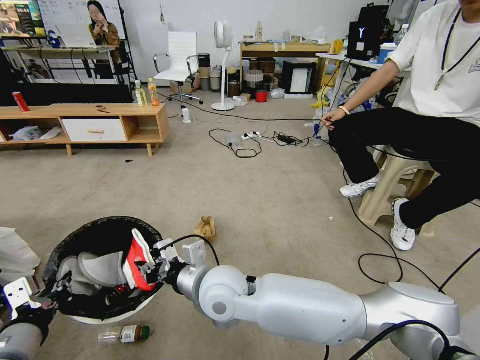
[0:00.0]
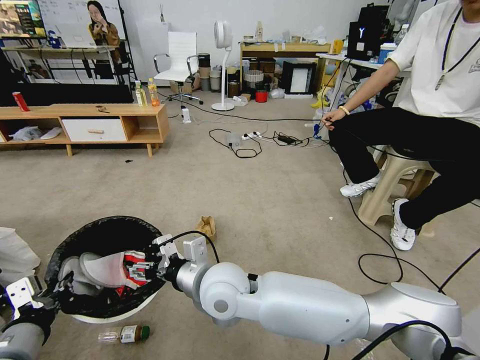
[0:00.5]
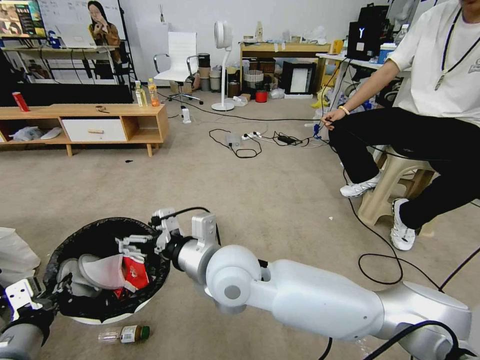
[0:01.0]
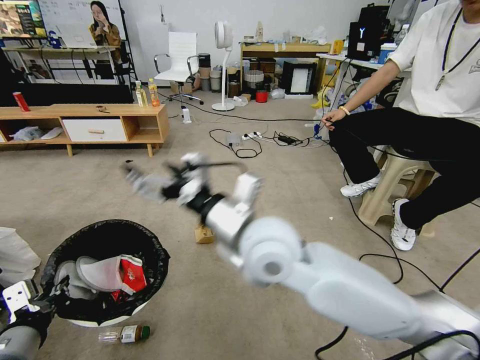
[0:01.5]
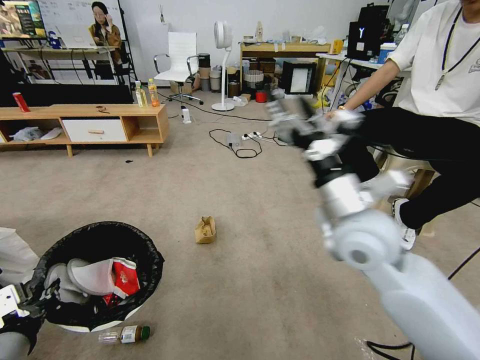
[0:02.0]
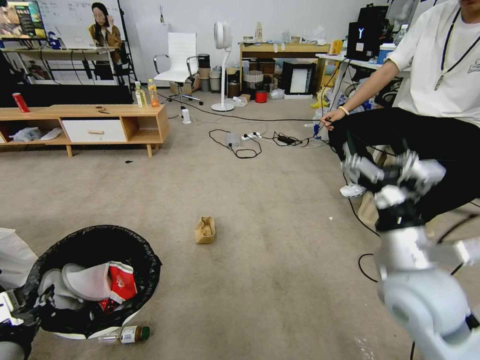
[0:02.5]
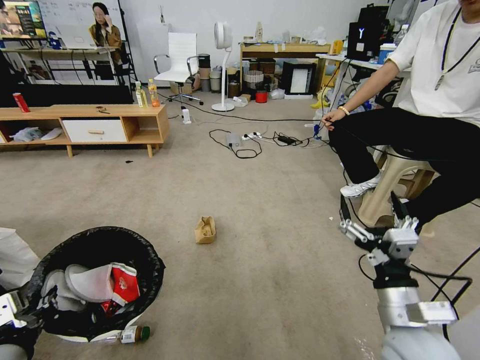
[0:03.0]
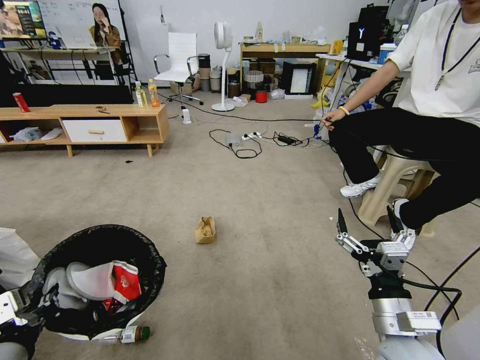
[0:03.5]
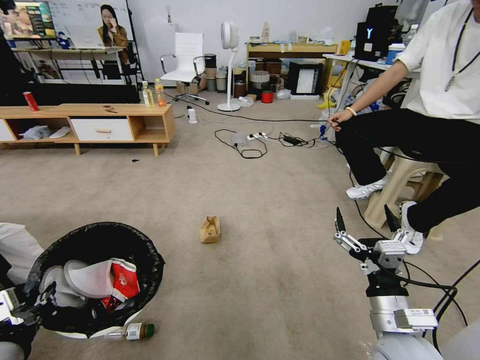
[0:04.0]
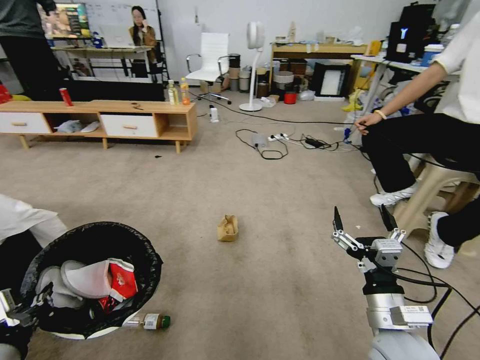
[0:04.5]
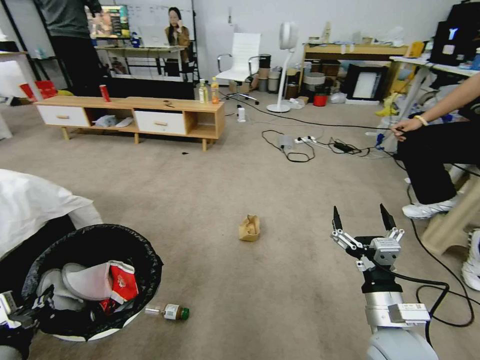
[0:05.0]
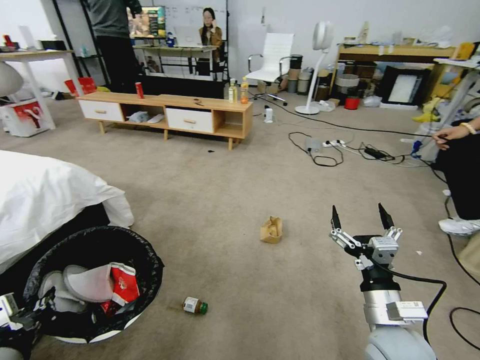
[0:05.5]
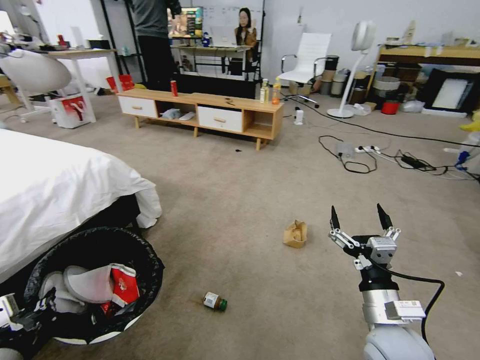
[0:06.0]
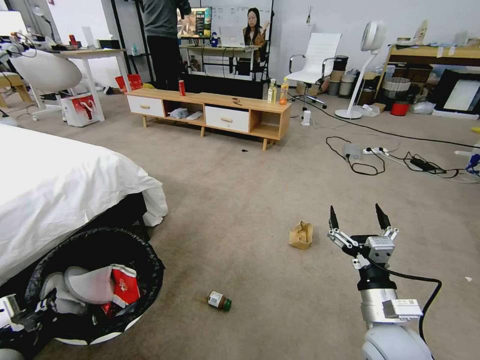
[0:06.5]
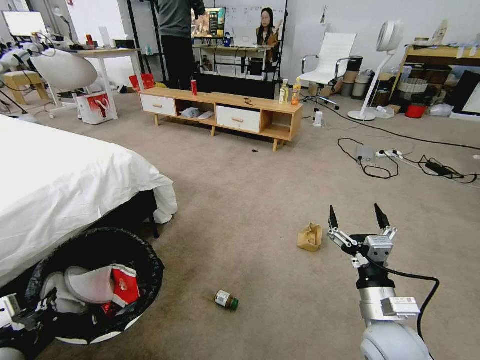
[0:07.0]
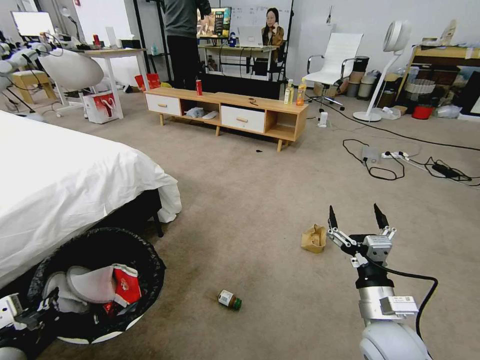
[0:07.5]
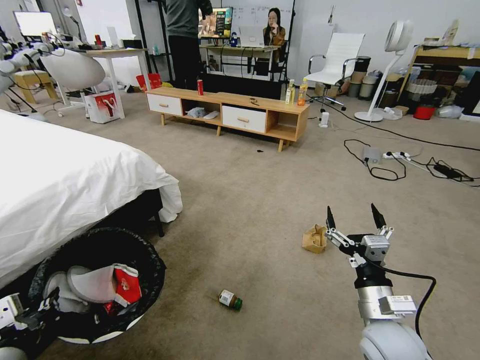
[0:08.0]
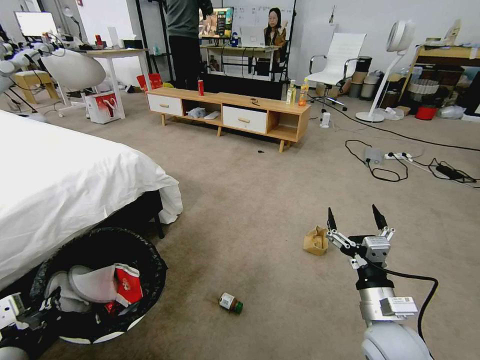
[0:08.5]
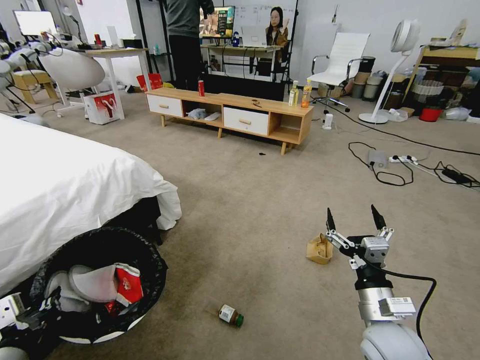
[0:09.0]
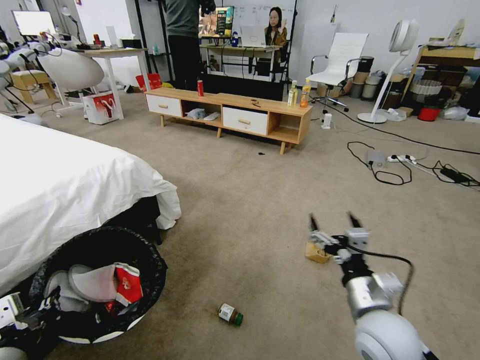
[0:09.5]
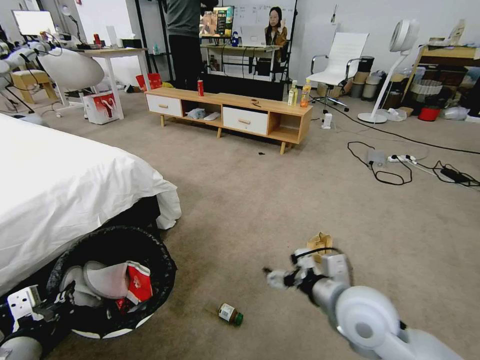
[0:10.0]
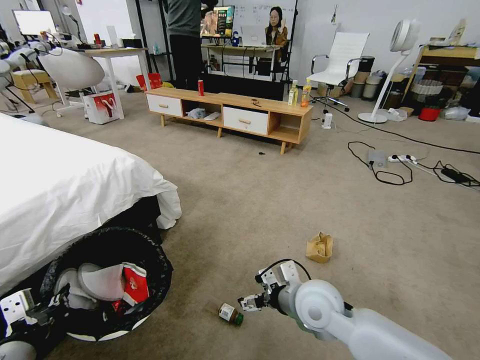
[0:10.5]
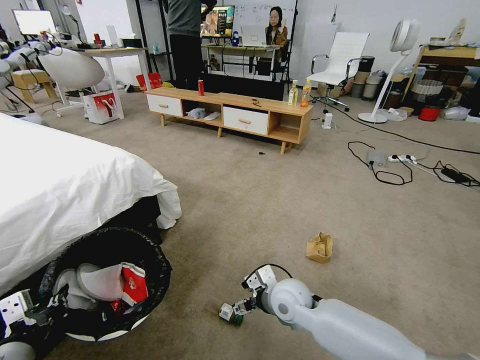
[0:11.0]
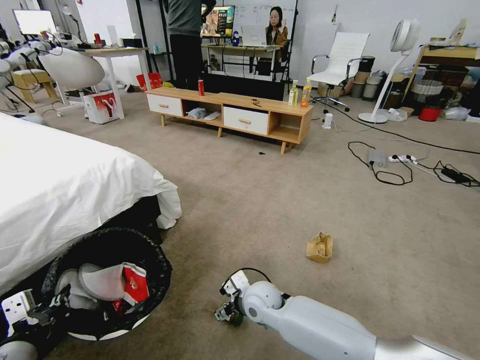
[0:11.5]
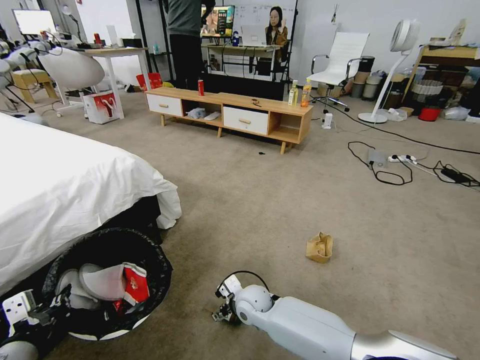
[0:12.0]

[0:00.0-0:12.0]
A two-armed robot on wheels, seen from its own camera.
Task of the whole recording: Pick up the trash bin and place the garbage on the floor into it.
0:00.0 to 0:02.0: The right gripper goes roughly 25 cm to the right and upward, and opens up.
0:02.0 to 0:04.0: The right gripper shifts some 25 cm downward, backward and to the right.
0:08.0 to 0:10.0: The right gripper travels upward and to the left by approximately 10 cm.
0:10.0 to 0:12.0: The right gripper heads downward, to the left and forward, covering roughly 30 cm.

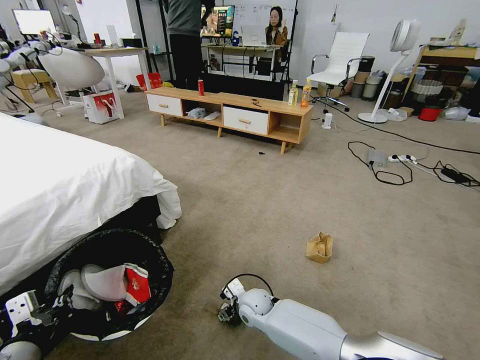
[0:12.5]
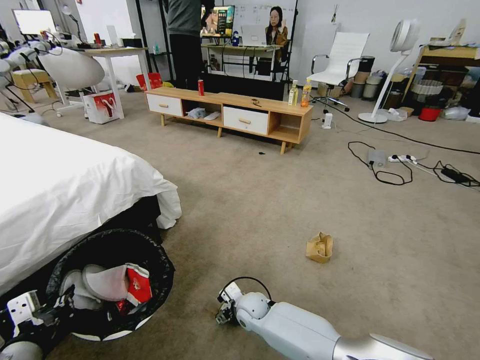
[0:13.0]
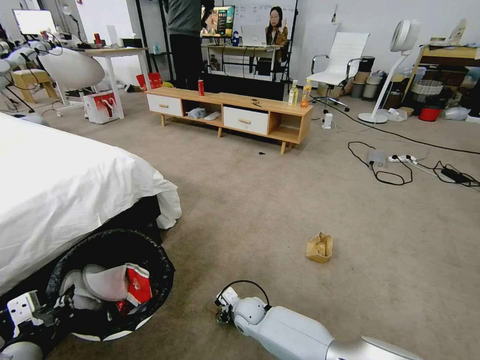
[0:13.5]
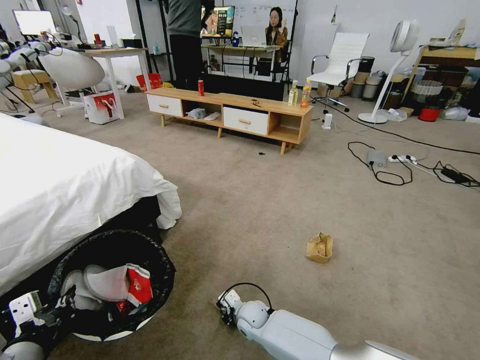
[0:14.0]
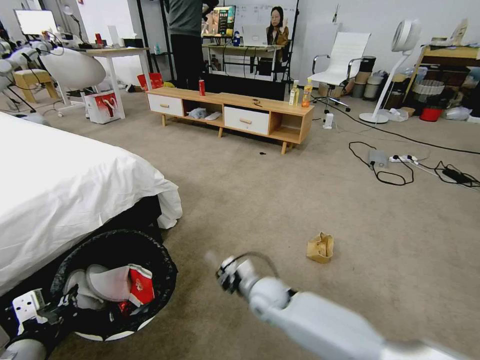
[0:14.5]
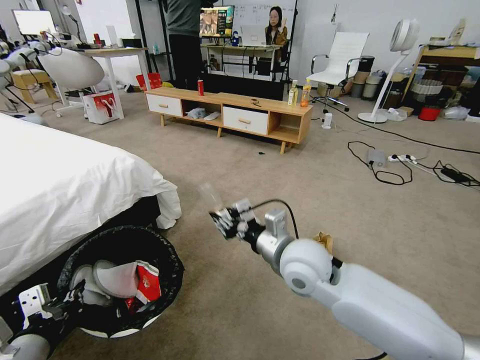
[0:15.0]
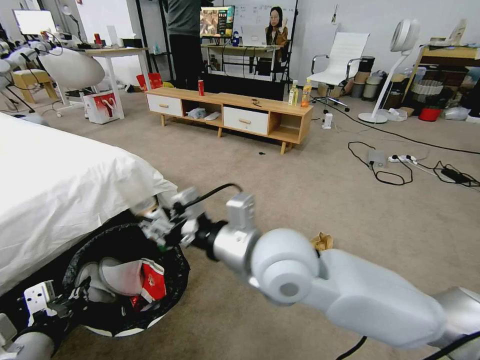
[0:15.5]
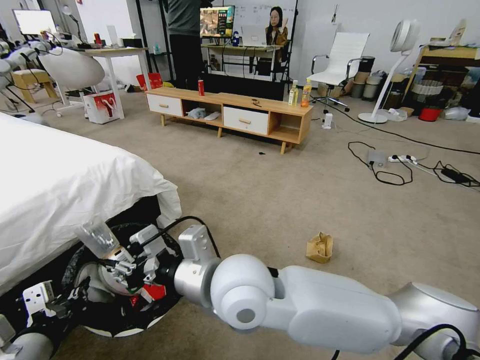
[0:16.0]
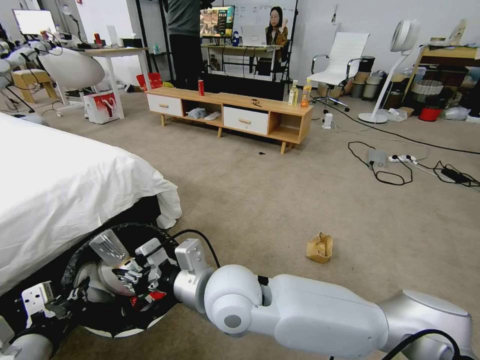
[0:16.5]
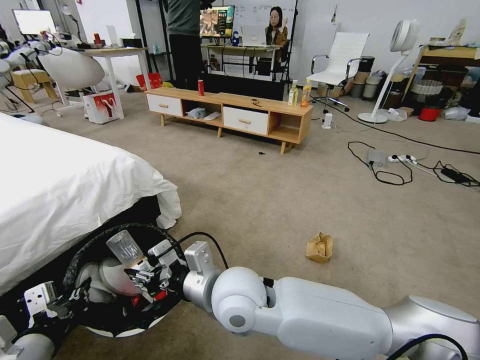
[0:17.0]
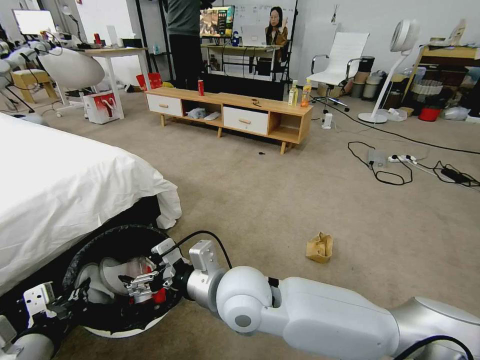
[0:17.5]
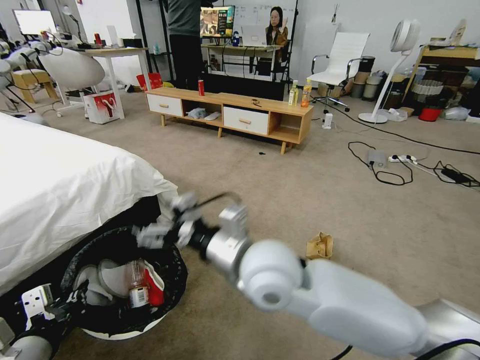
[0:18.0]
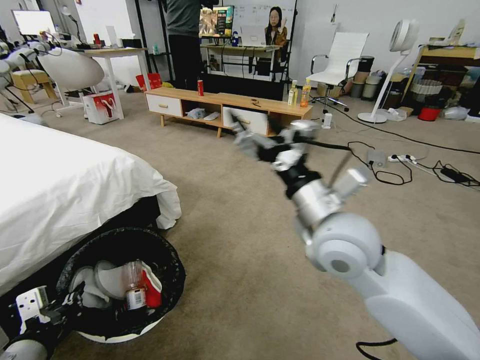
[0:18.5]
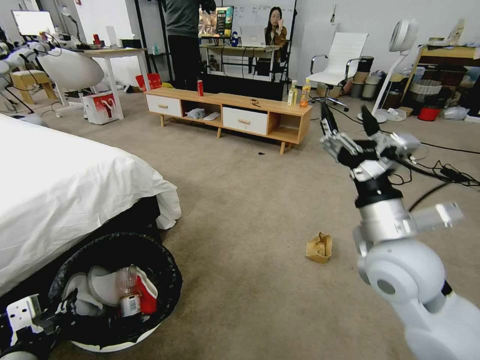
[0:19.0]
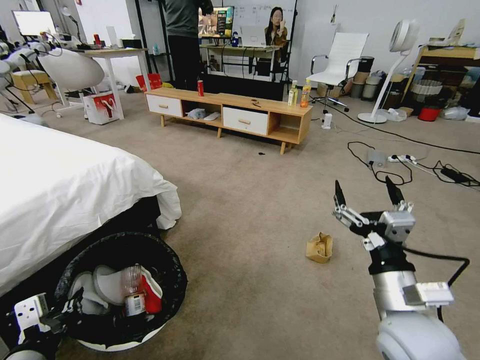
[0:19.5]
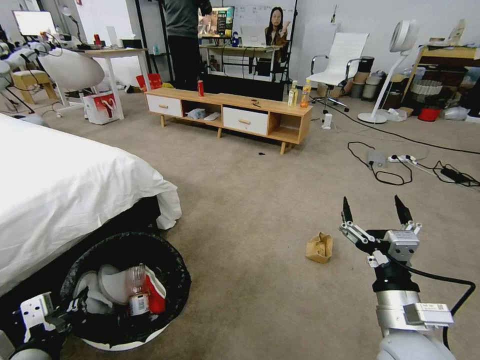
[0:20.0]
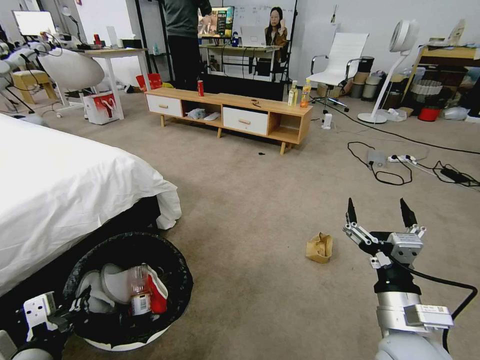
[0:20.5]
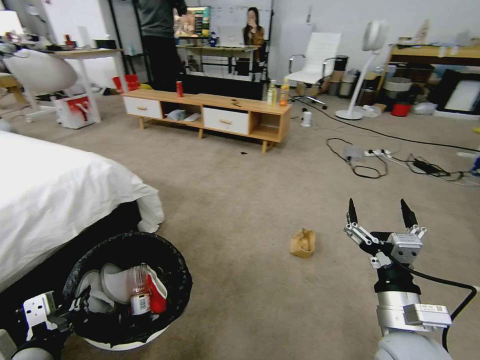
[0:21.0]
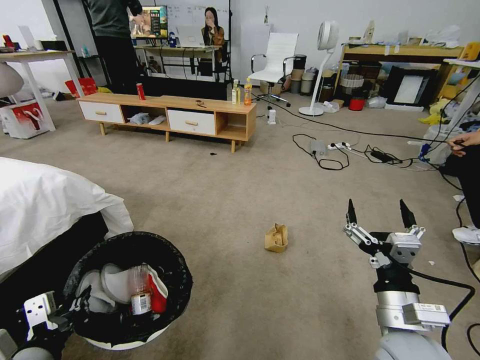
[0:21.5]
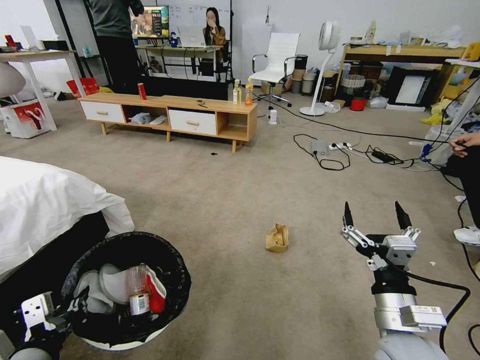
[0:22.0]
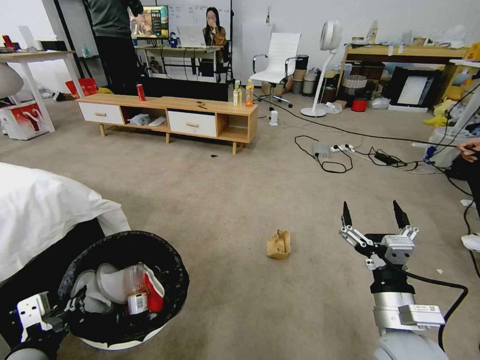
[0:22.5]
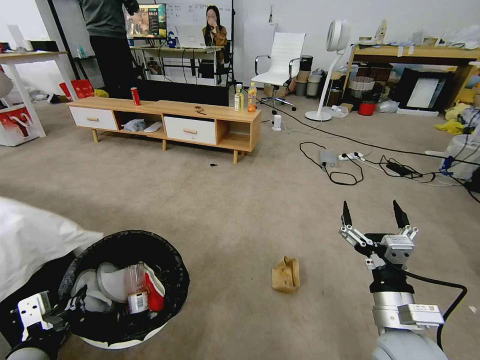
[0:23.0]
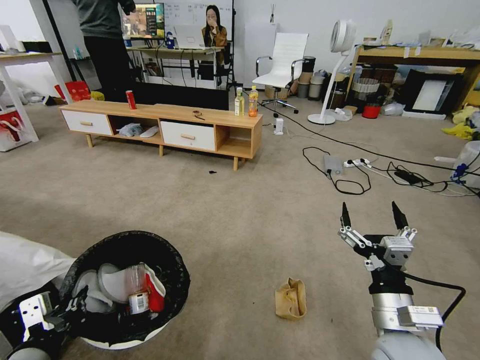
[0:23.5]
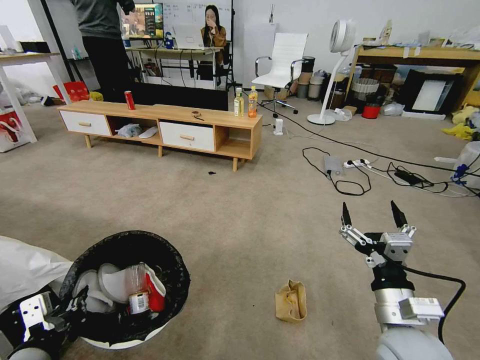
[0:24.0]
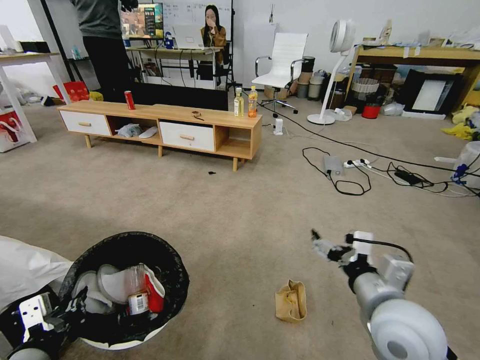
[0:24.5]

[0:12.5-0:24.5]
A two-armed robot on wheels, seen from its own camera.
Task of the whole recording: Pick up the trash bin and place the garbage on the floor into it.
0:12.5 to 0:14.5: The right gripper shifts some 10 cm upward, and closes its fingers.
0:14.5 to 0:16.5: The right gripper is displaced upward, backward and to the left by roughly 25 cm.
0:16.5 to 0:18.5: The right gripper shifts approximately 20 cm to the right and upward, and opens its fingers.
0:18.5 to 0:20.5: The right gripper travels downward, backward and to the right by some 20 cm.
0:22.5 to 0:24.5: The right gripper ends up about 5 cm from where it was.

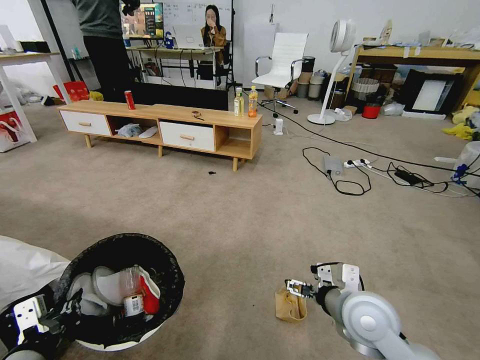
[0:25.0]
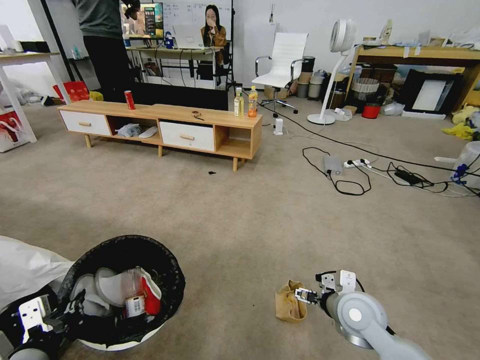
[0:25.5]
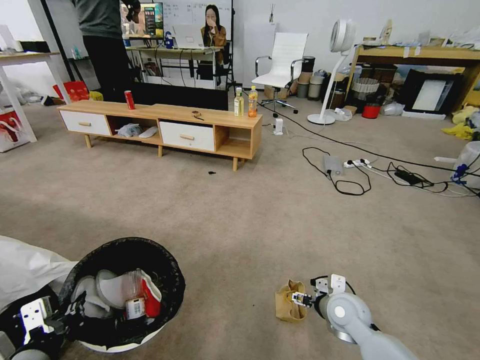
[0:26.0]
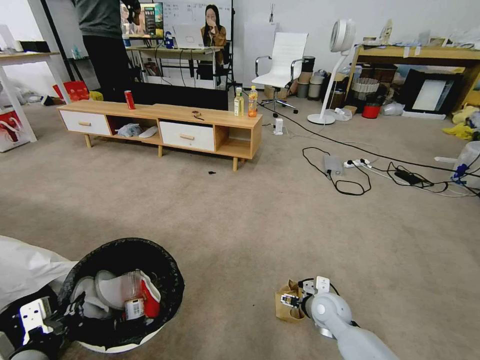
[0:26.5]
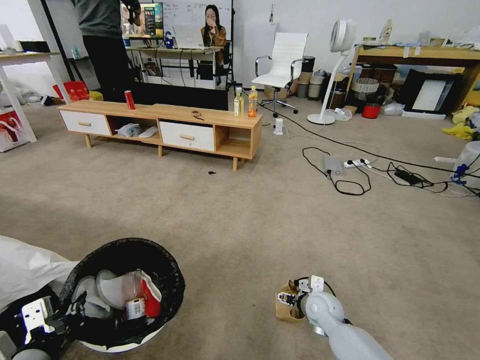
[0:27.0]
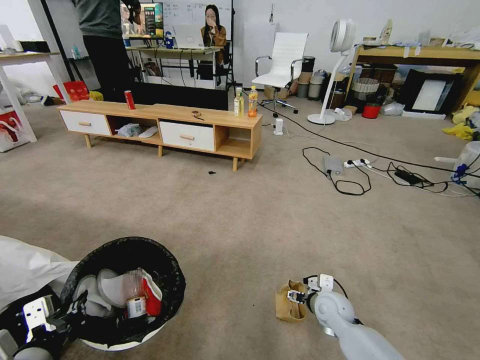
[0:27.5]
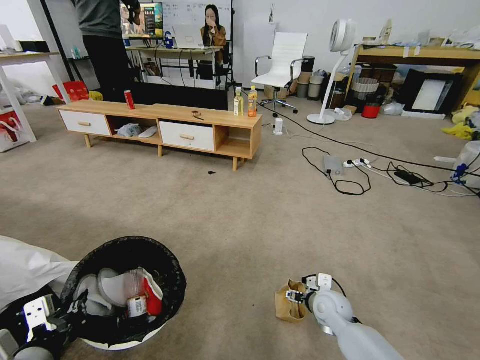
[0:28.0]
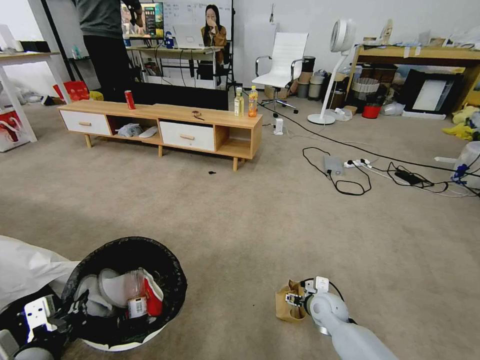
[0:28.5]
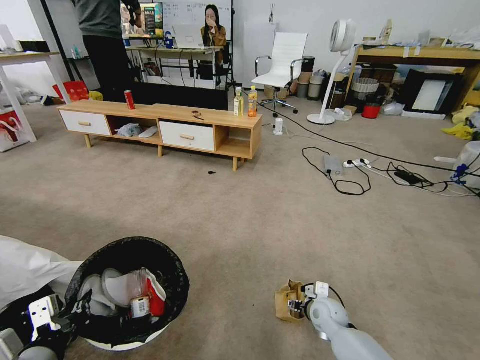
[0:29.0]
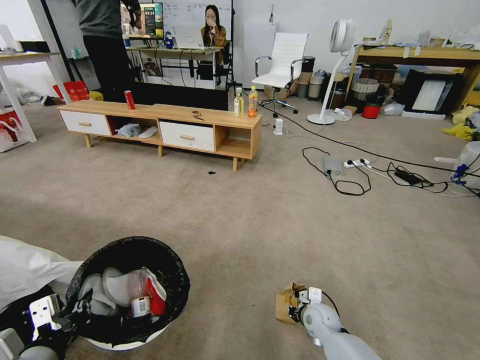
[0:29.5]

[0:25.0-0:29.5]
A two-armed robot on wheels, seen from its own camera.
Task of the whole recording: Pick up the trash bin and place the garbage on the floor into it.
0:25.0 to 0:27.0: The right gripper moves downward and forward, roughly 20 cm.
0:27.0 to 0:29.5: The right gripper is displaced downward by approximately 5 cm, and closes its fingers.
